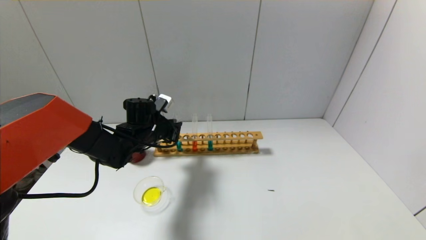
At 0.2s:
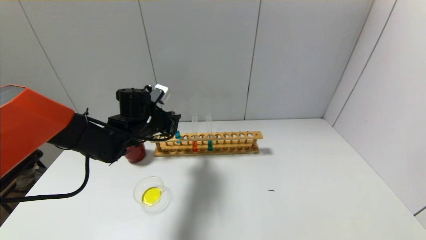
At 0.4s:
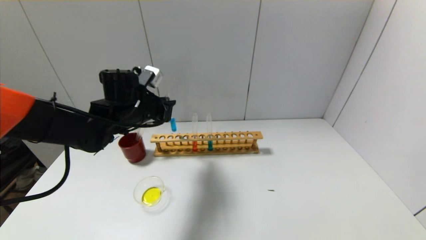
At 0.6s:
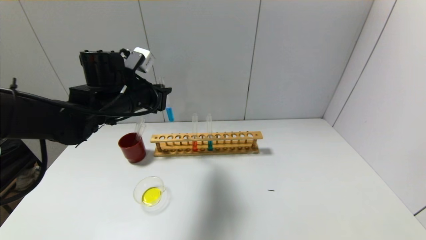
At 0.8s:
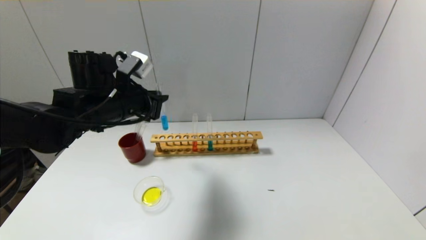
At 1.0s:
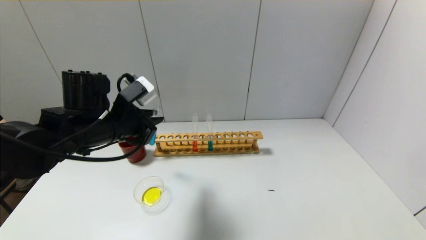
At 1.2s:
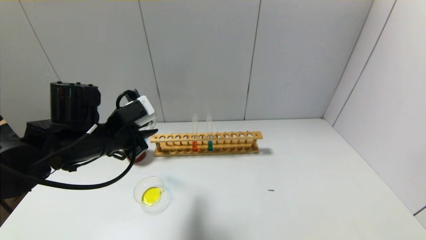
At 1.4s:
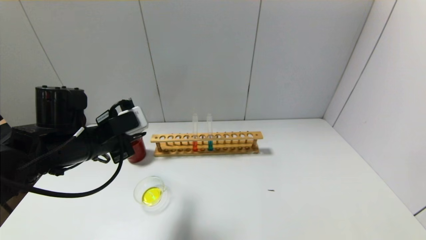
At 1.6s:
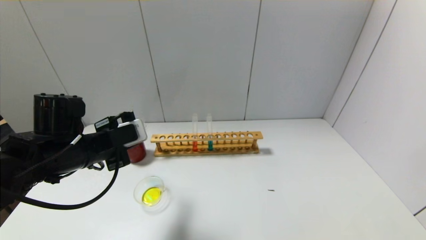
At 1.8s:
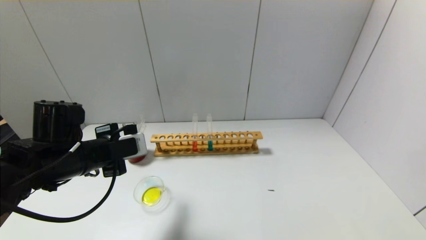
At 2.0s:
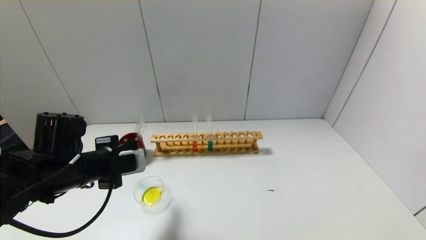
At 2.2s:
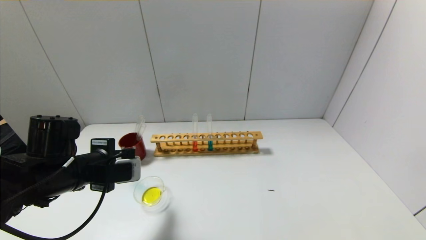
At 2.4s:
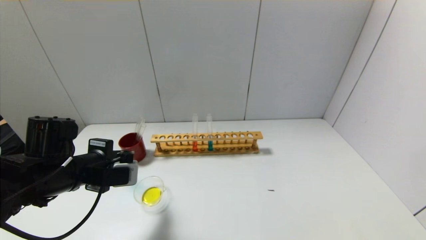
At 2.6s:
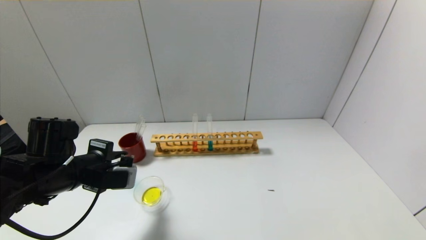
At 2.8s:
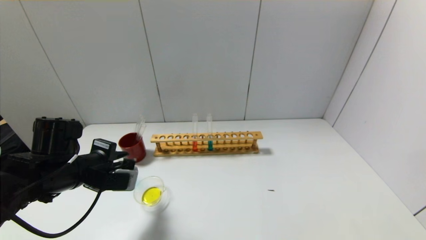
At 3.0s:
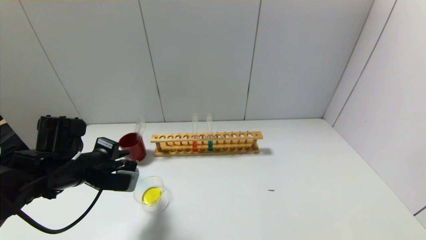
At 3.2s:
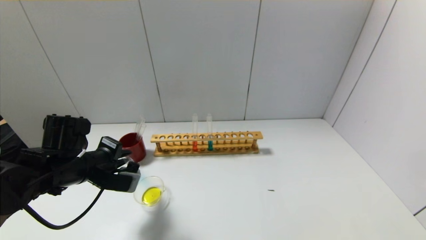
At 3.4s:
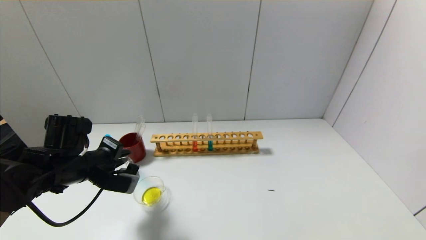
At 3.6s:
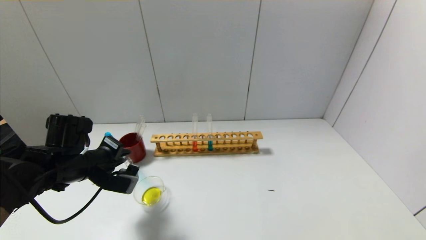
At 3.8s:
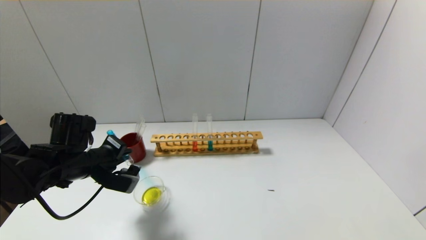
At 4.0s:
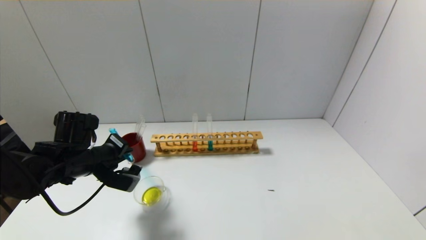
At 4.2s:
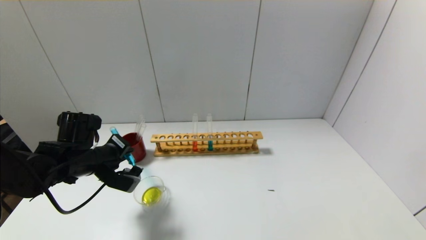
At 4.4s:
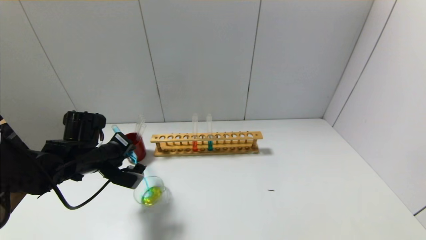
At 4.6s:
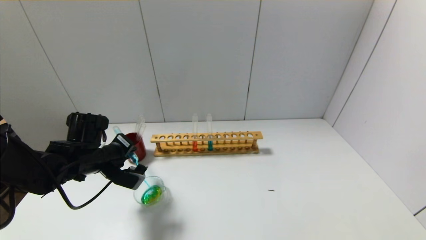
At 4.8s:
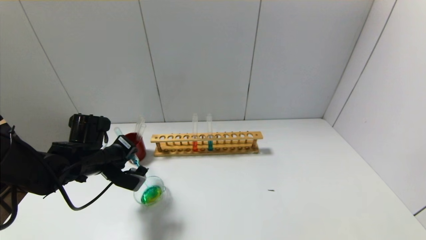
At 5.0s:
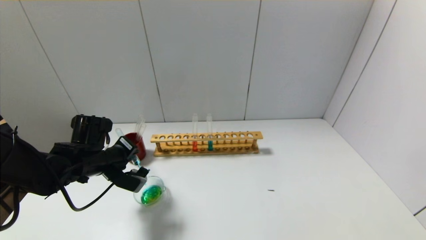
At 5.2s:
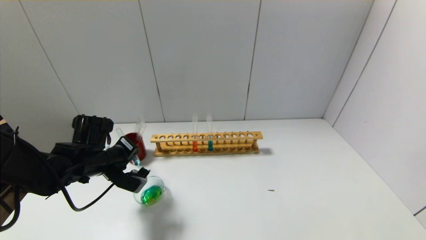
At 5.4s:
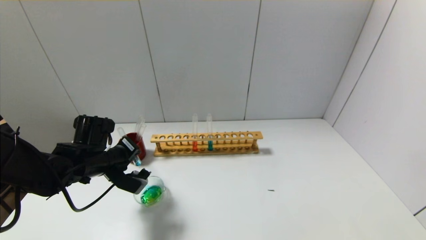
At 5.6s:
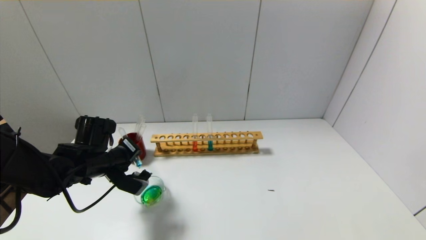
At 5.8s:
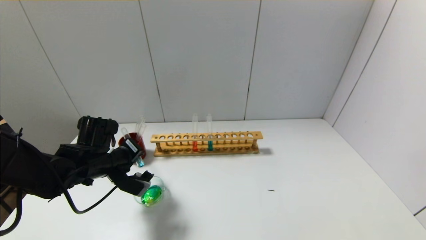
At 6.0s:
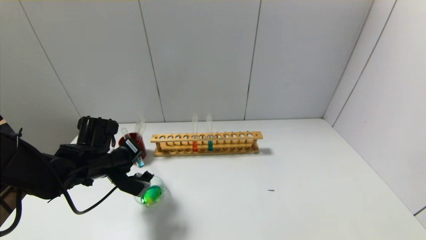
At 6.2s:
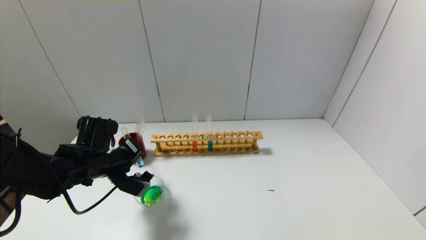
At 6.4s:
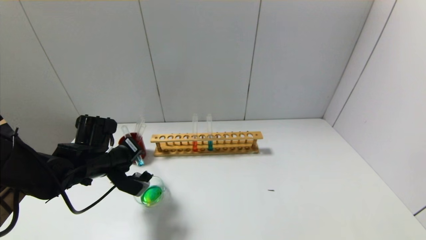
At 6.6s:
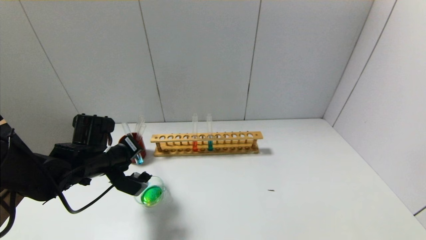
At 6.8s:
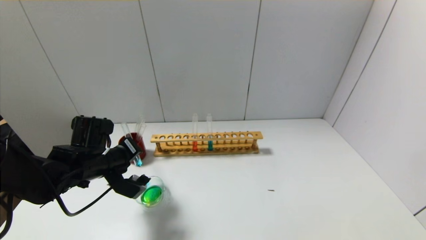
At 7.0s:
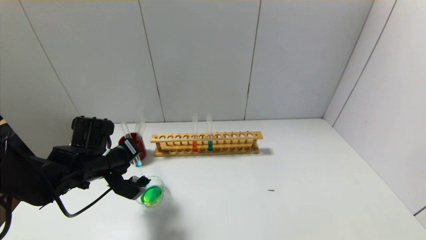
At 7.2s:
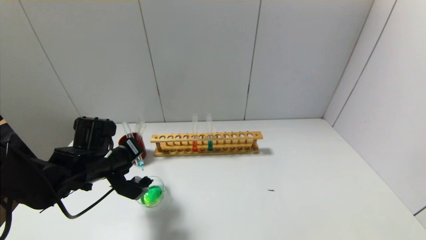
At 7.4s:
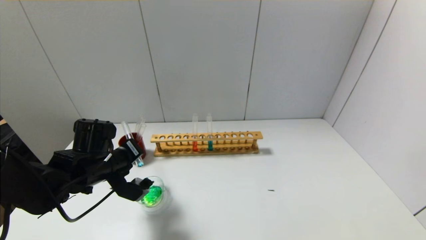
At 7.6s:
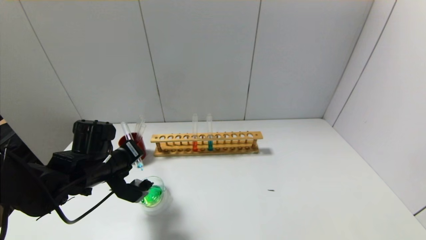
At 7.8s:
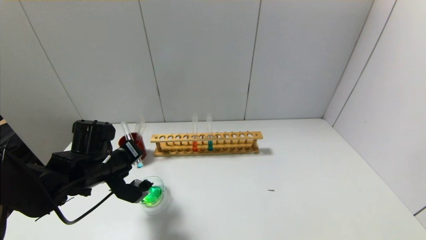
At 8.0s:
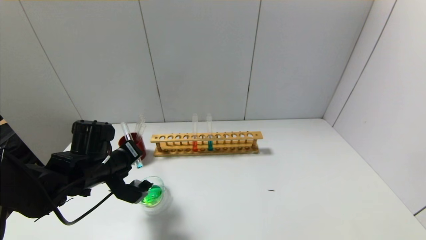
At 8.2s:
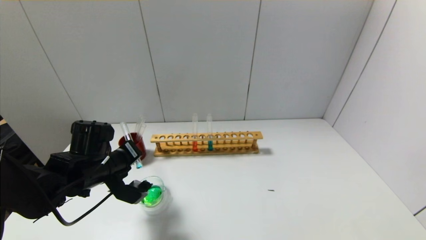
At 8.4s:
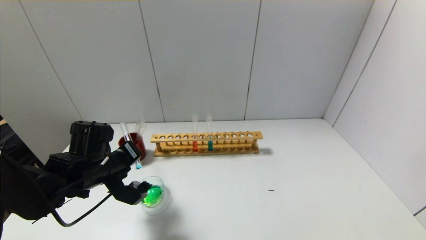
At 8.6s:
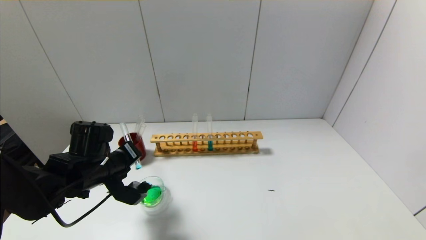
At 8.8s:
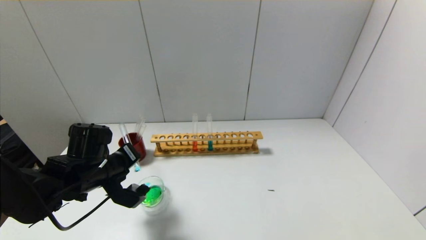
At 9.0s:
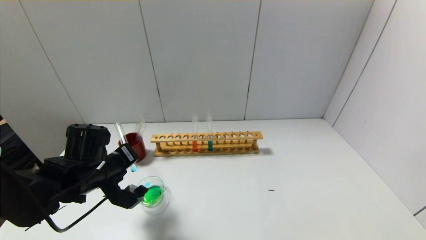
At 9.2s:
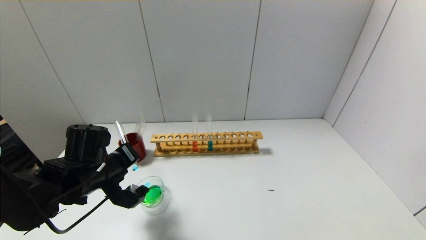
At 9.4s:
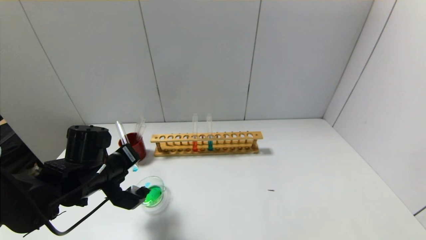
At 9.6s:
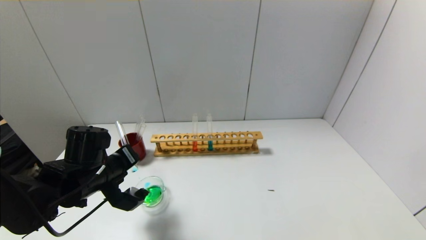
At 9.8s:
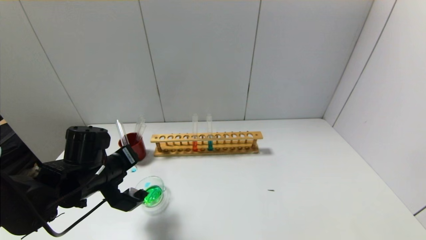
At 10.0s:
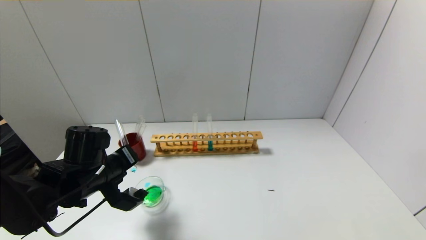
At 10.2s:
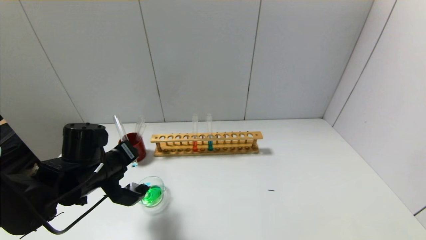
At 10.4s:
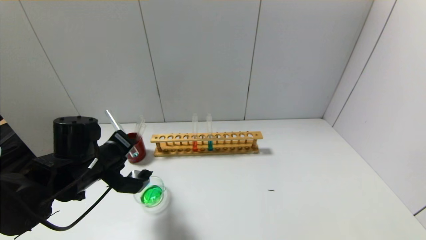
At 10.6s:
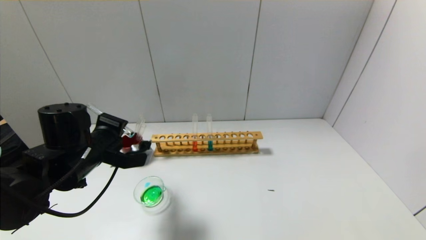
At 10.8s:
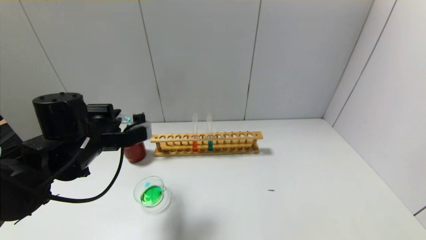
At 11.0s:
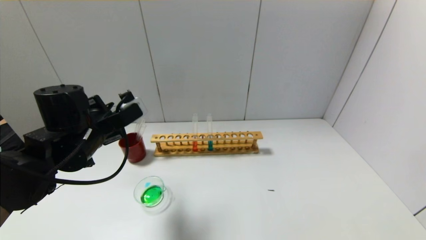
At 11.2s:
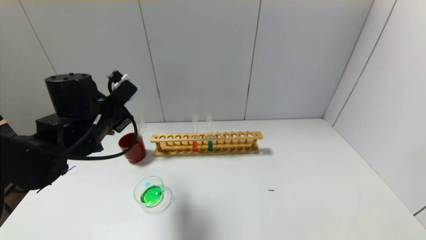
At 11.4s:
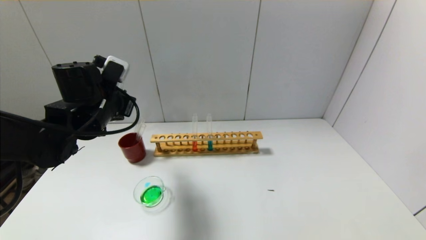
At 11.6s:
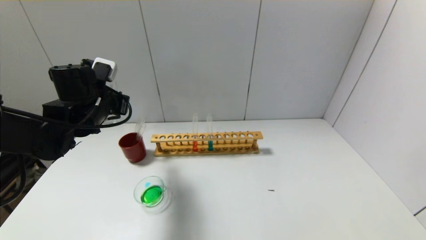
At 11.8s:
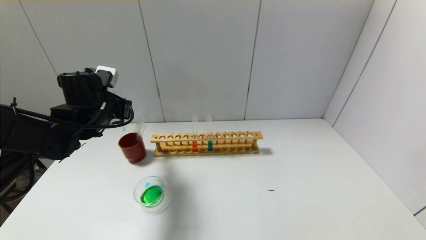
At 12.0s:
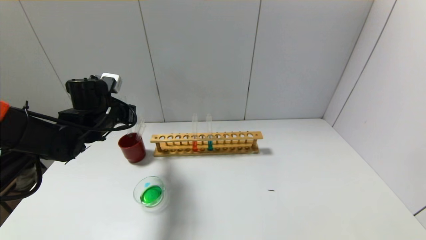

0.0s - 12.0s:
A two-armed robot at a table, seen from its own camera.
Step, 0.0s - 10.4s: Pour the blue reagent into the graduated cylinder with the left gripper.
0.0s - 1.6s: The left gripper heads backward, upward and to the left, covering approximately 15 cm.
3.0s - 4.4s: The grippers stay close to where they were, moving slightly.
4.4s - 7.6s: The grippers make only small movements.
7.6s - 9.0s: Both grippers stay about where they are.
9.0s - 10.4s: The grippers move only a little.
10.4s - 12.0s: The left gripper travels forward by roughly 10 cm.

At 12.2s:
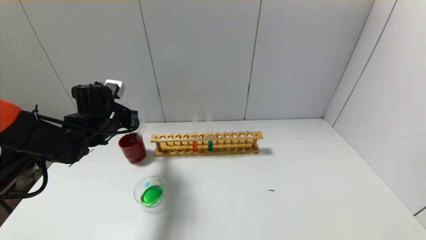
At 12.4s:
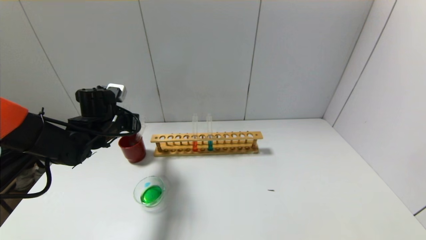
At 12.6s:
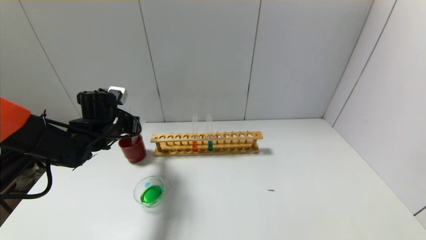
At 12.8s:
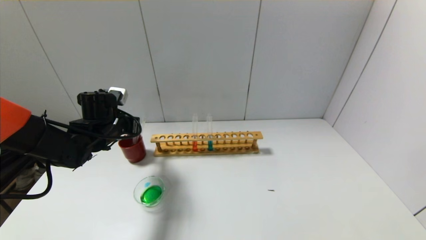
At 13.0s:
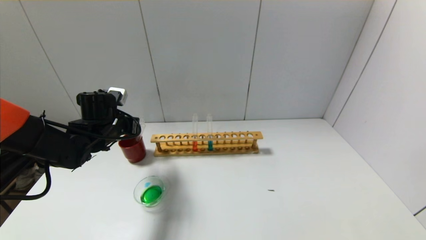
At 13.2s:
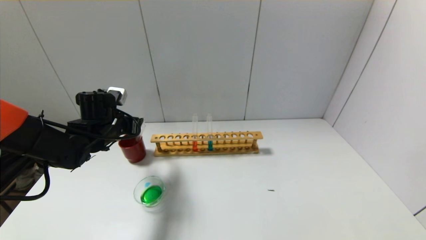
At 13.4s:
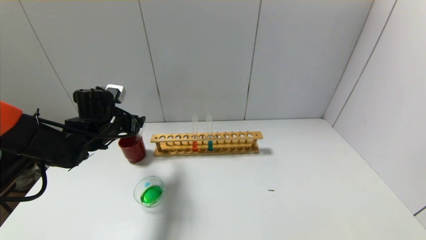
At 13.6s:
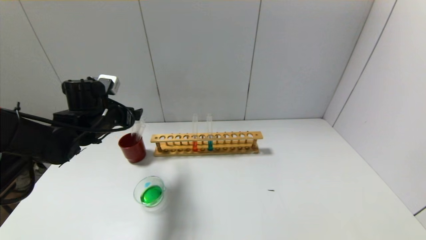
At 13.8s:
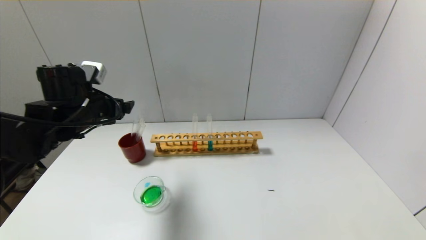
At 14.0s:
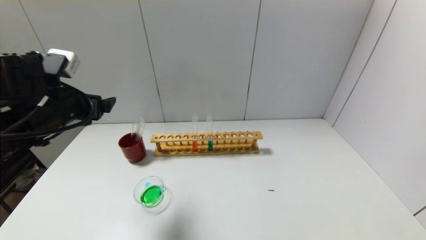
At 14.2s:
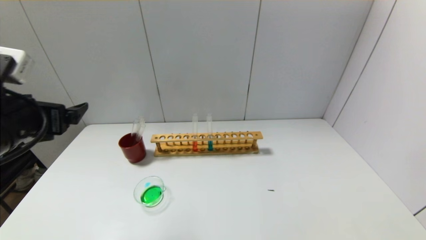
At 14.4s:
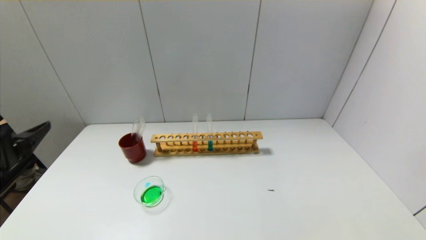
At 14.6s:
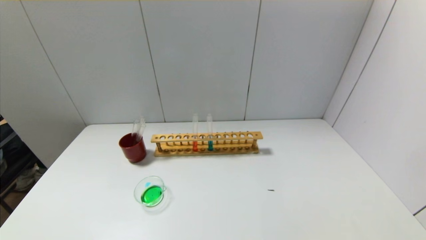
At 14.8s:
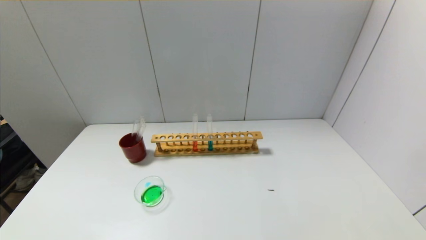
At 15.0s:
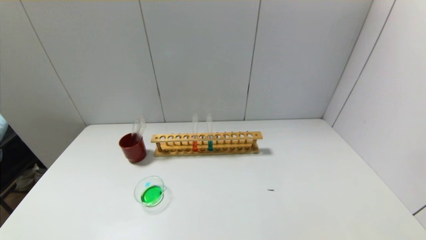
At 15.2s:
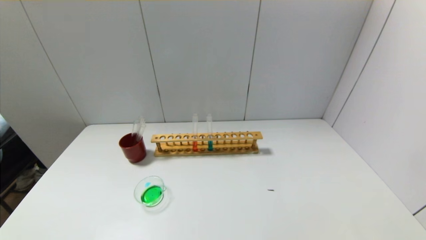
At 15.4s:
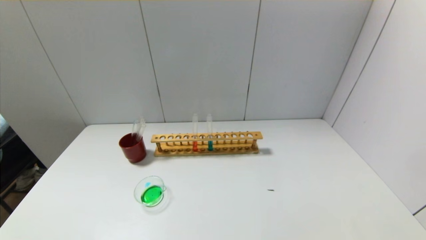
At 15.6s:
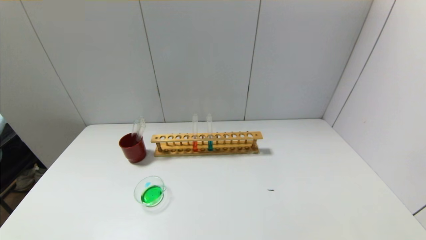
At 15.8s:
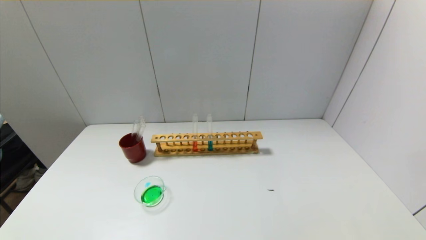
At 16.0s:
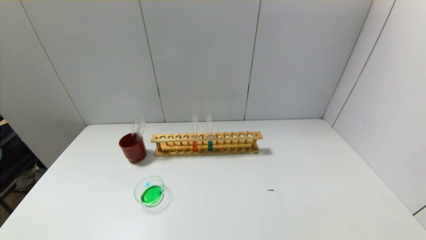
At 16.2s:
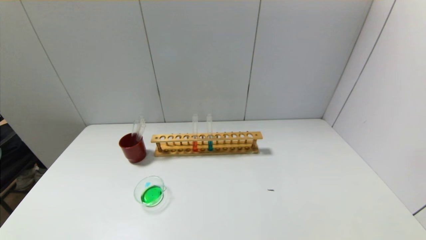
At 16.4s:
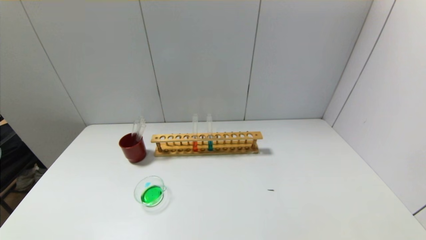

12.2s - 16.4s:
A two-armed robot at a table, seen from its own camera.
12.2s - 13.6s: The left gripper opens its fingers.
13.6s - 15.0s: The left gripper goes some 35 cm backward.

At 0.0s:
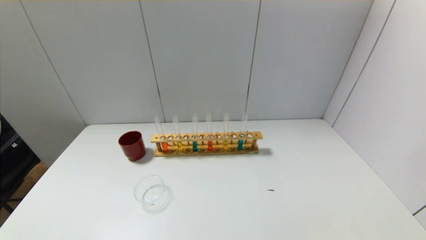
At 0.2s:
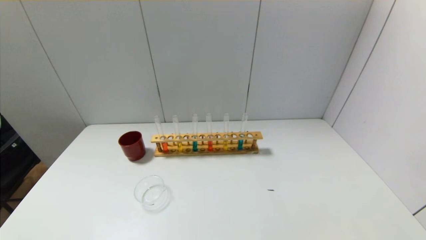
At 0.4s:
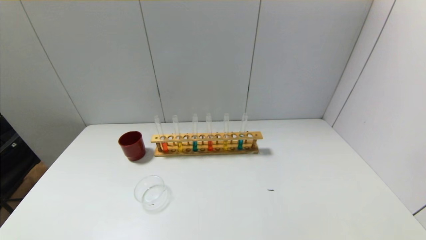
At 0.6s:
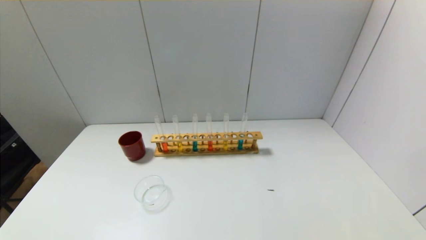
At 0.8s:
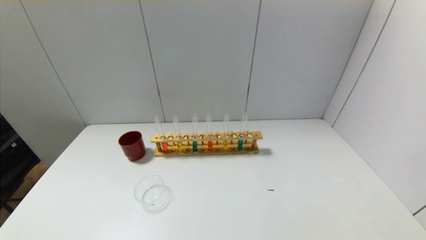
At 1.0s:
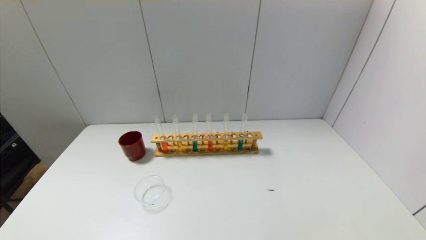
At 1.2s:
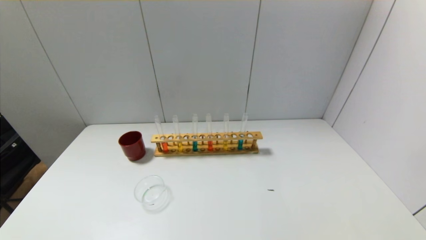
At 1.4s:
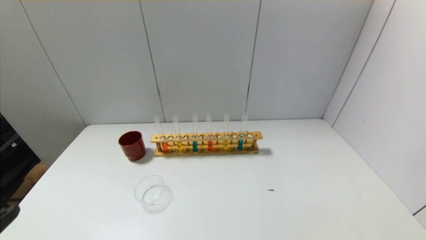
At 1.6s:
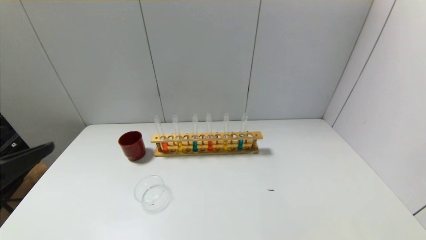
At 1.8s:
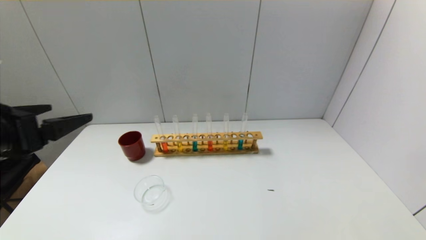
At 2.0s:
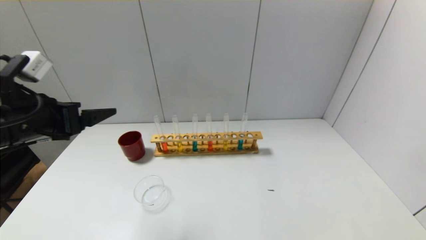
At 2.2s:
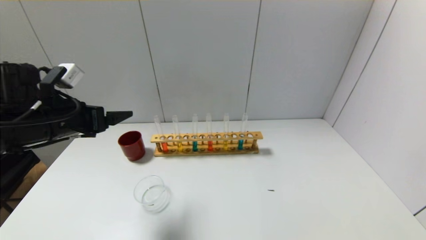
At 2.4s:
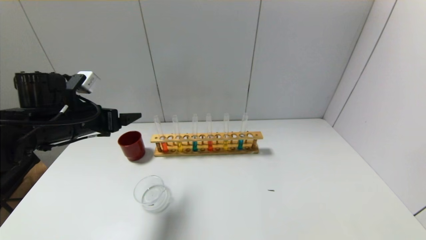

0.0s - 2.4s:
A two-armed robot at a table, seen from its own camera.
1.2s - 2.4s: The left gripper heads forward, covering some 35 cm.
